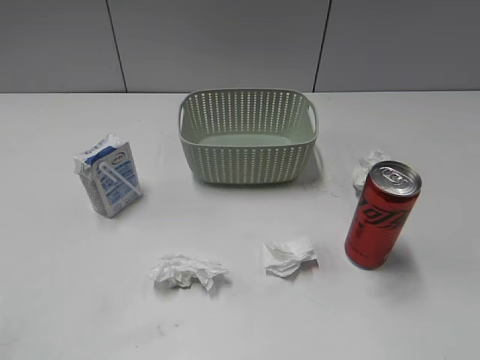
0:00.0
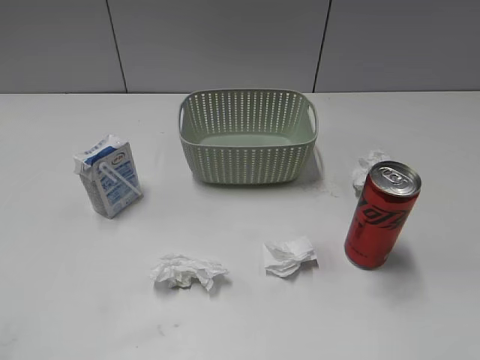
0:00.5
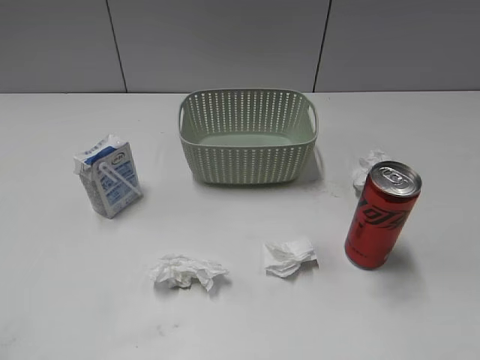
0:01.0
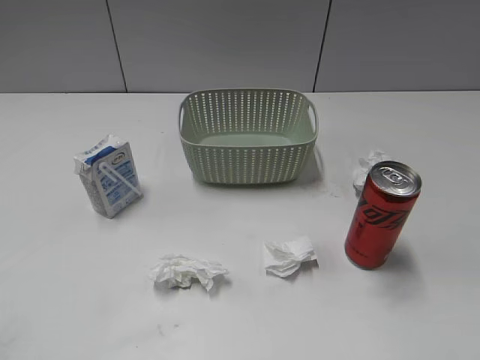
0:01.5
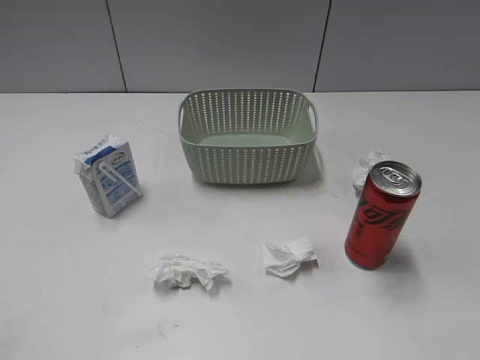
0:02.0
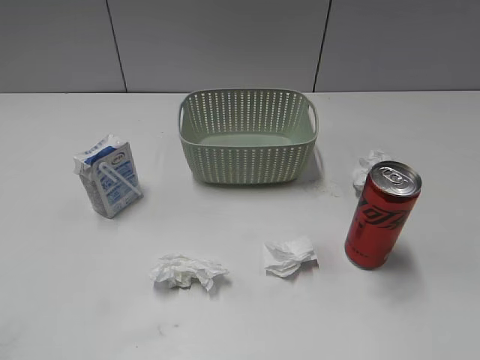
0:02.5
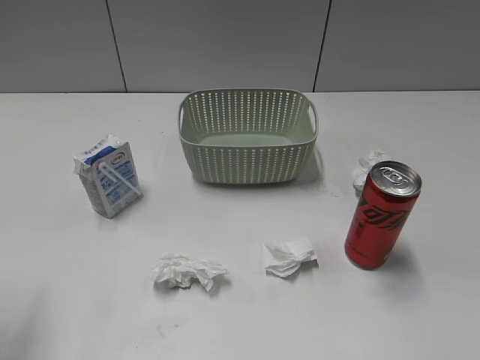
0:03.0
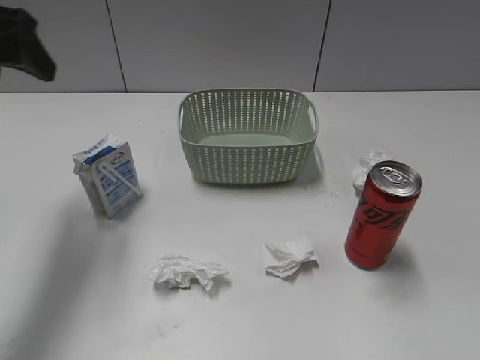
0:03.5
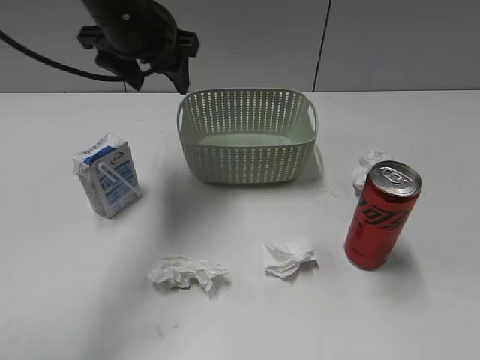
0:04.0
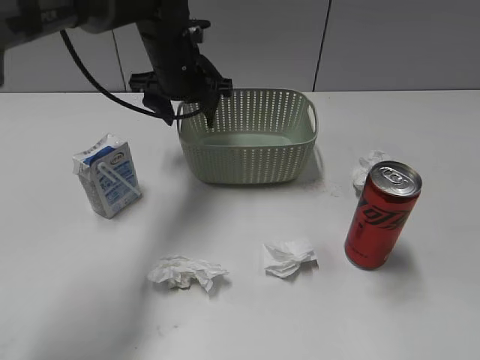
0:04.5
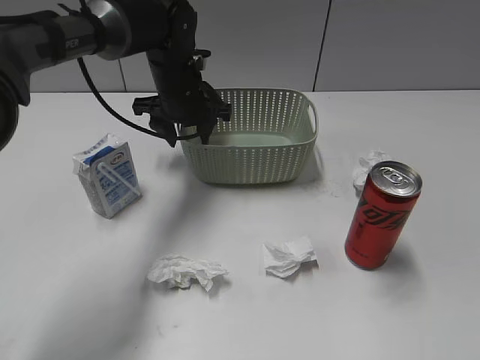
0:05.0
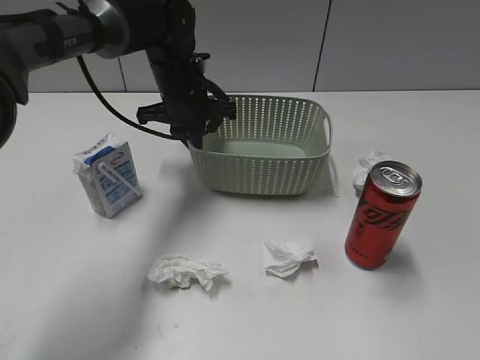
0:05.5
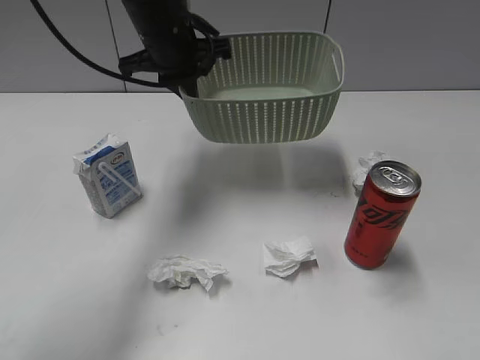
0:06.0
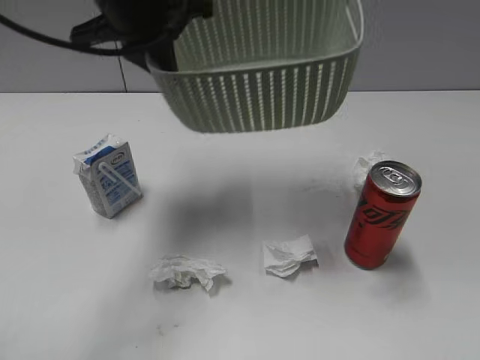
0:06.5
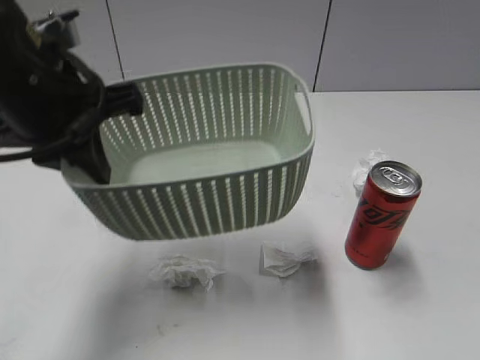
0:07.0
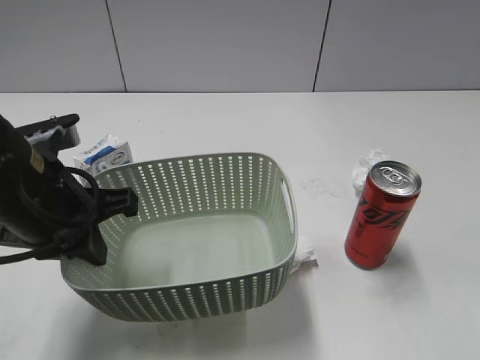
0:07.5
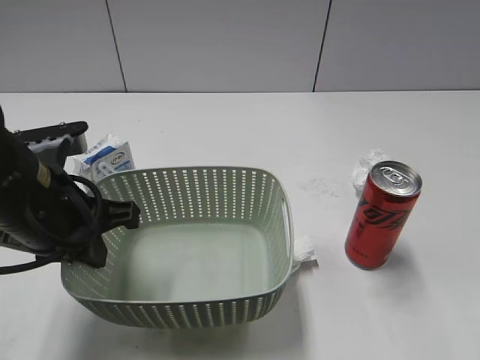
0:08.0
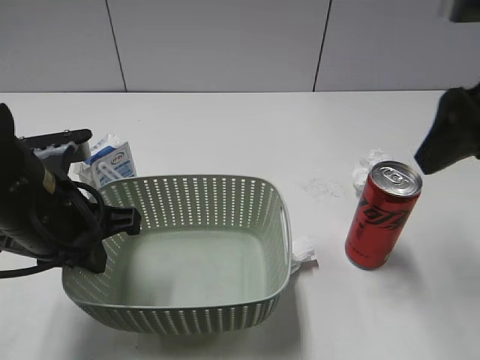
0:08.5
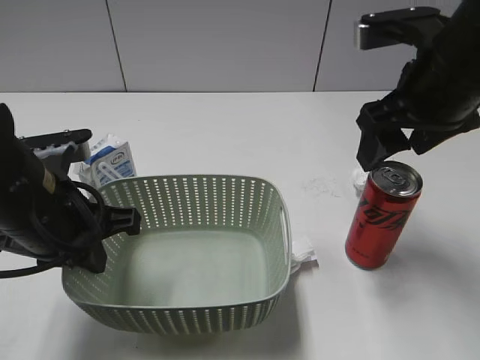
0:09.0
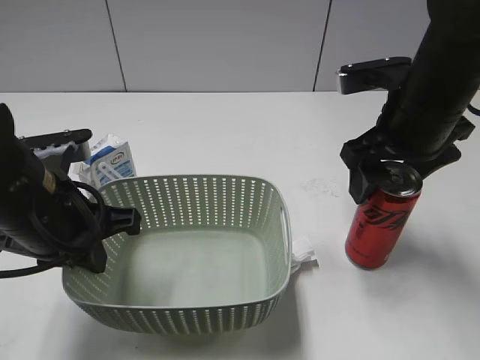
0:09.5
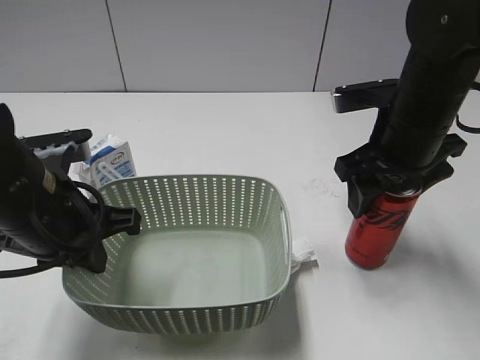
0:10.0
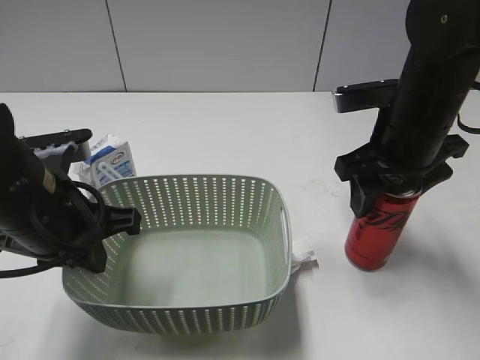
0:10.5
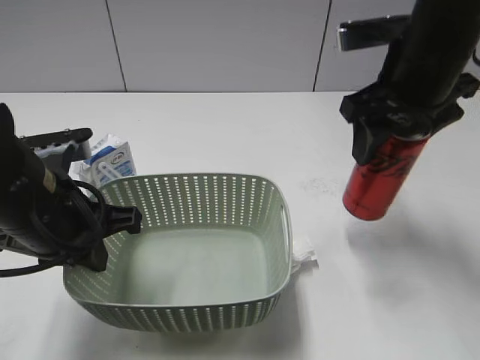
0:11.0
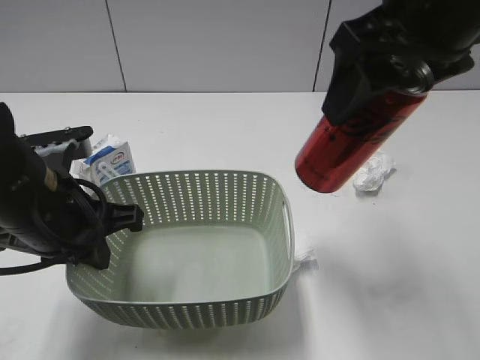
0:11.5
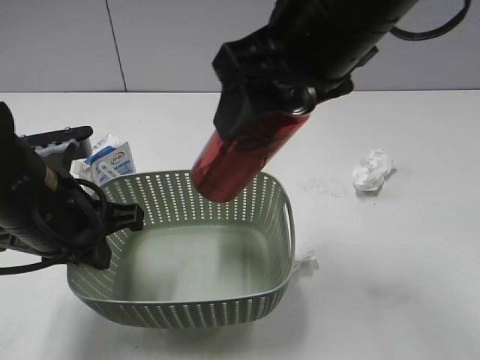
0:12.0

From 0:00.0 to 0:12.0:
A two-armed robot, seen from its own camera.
Step, from 0:03.5 to 0:05.0: Grasp the basket with left gripper.
Step, from 0:05.5 to 0:08.0: Lift the basket with left gripper.
Step, from 0:08.5 to 0:10.5: Grasp the cola can with right gripper.
From 0:02.0 to 0:04.0: The left gripper is displaced forward and to the right by about 50 cm, and opens up.
From 0:04.0 to 0:06.0: The left gripper travels downward and back again, approximately 10 cm each way, and closes its fingers.
From 0:06.0 to 0:08.0: The right gripper goes some 15 cm forward and upward. Meanwhile the left gripper goes roughly 25 cm backward and to the left.
From 0:08.0 to 0:10.0: The right gripper is displaced forward, downward and to the left by some 25 cm.
From 0:10.0 to 0:12.0: The right gripper travels upward, to the left and backward by roughly 20 cm, and closes up.

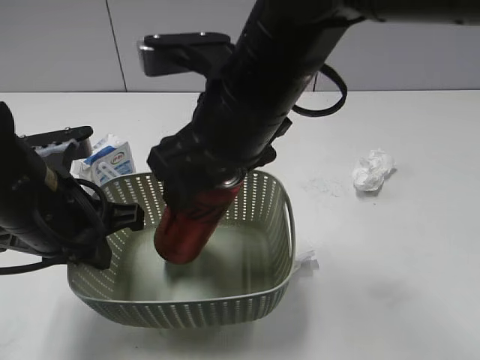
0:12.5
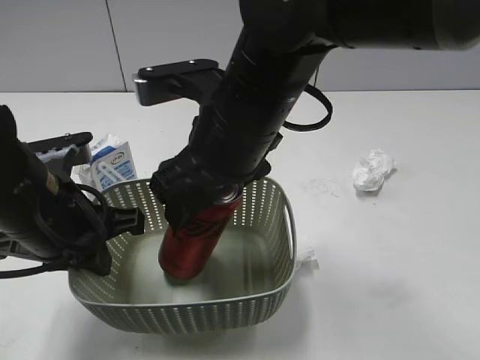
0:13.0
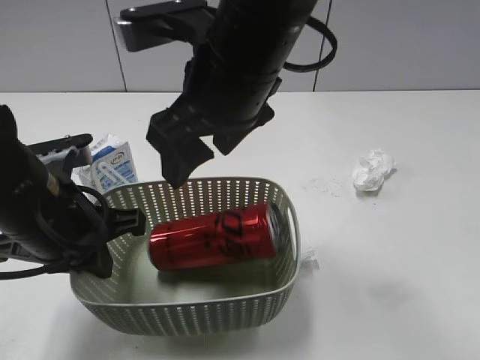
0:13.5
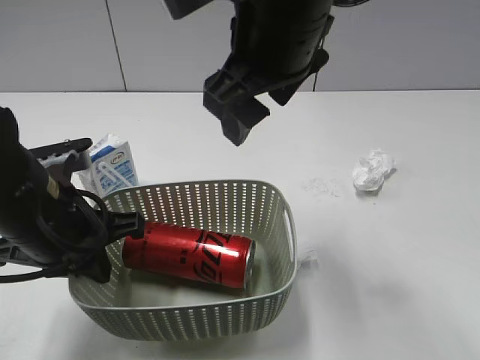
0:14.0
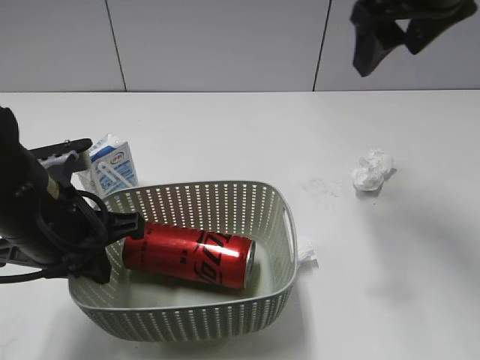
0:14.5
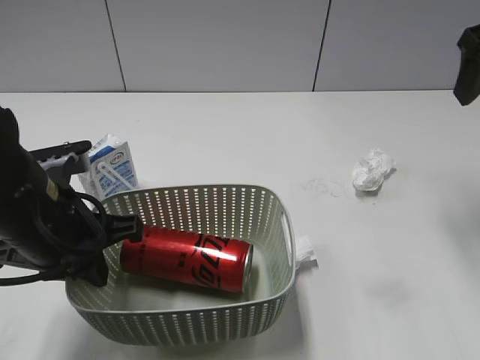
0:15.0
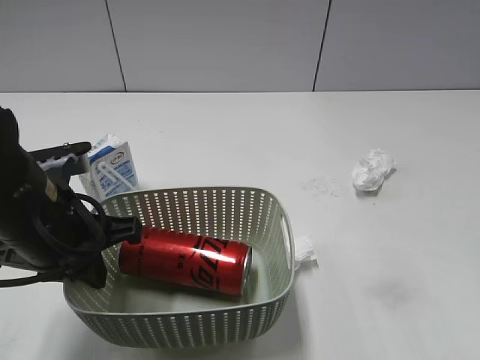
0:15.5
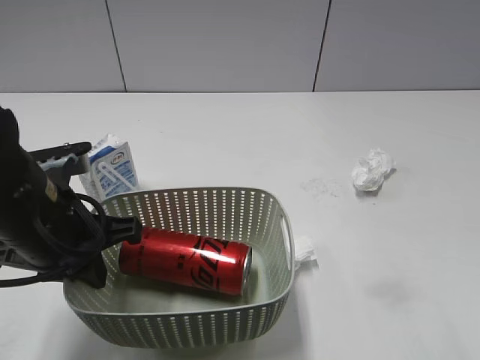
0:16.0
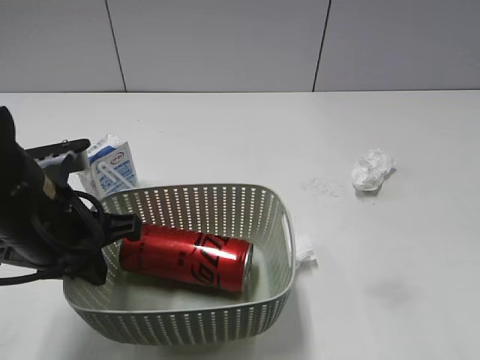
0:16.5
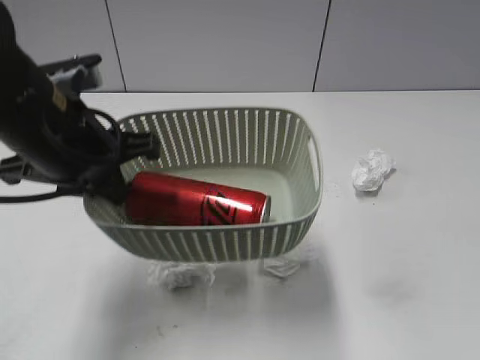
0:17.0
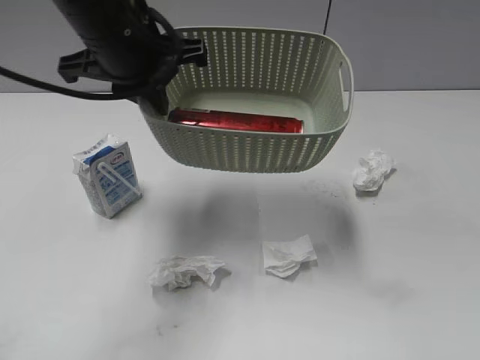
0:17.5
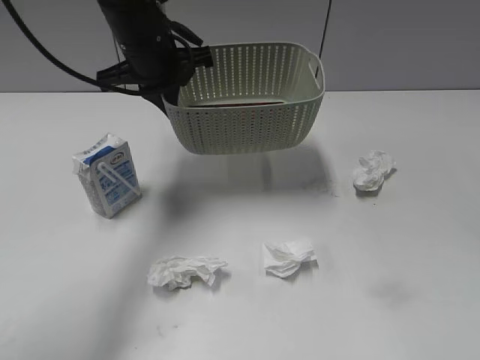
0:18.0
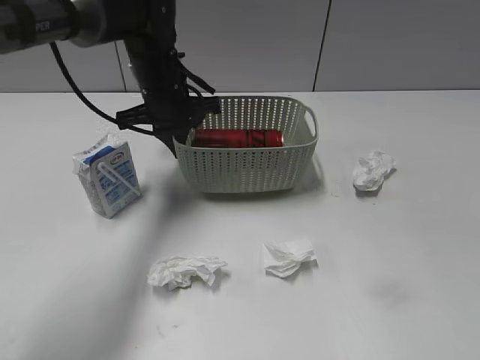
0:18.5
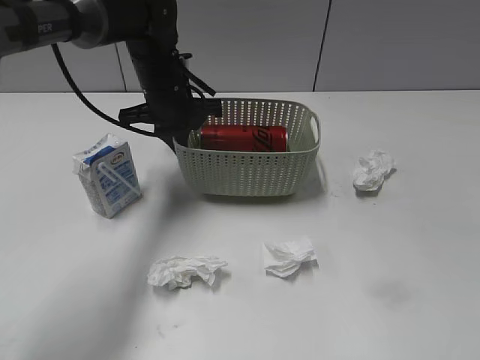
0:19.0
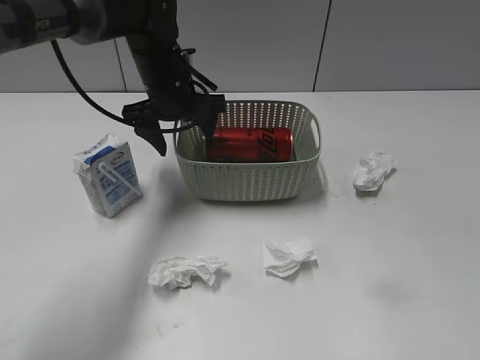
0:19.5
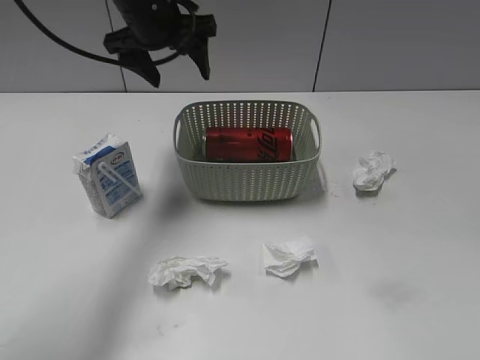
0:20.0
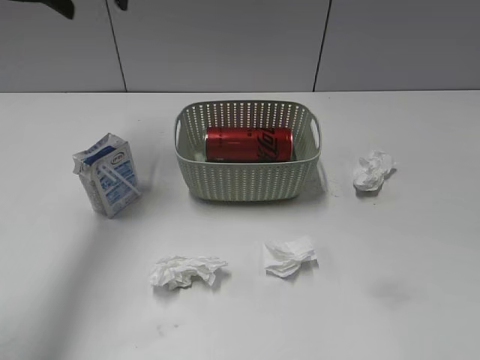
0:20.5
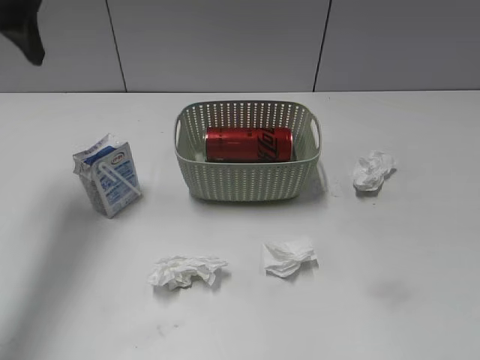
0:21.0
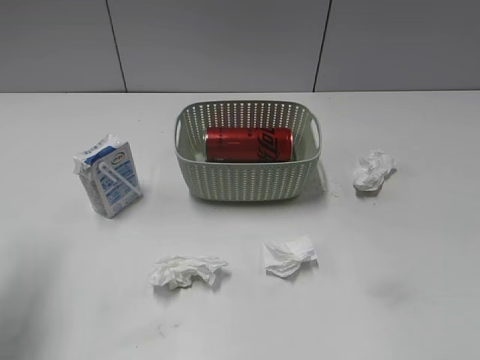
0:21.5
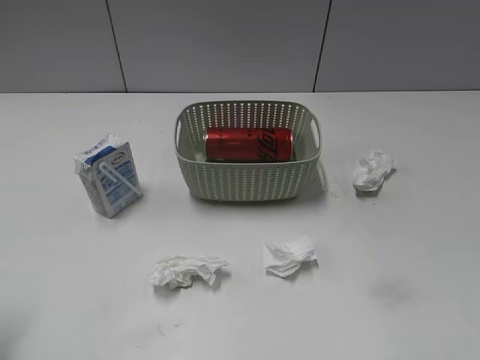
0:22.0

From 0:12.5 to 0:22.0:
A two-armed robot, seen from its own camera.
Step, from 0:13.5 to 0:19.0: Place the basket on the table with left gripper.
From 0:12.5 to 0:14.5: The right gripper goes roughly 20 cm to the right, forward and upward, and opens.
From 0:14.5 to 0:16.5: The right gripper moves backward and to the right, roughly 30 cm.
From 0:16.5 to 0:18.0: The left gripper heads forward, covering approximately 20 cm, while the right gripper ends up approximately 5 cm from where it was.
From 0:18.0 to 0:20.0: The left gripper moves approximately 5 cm downward and comes back, and opens.
From 0:20.0 to 0:22.0: The left gripper moves backward and to the left, roughly 35 cm.

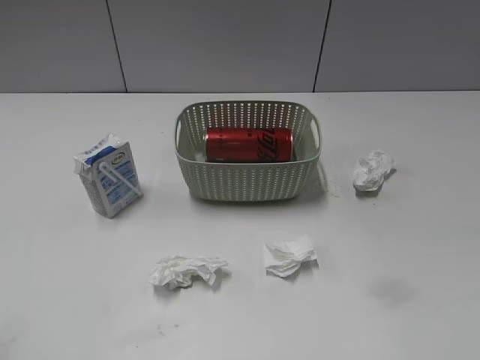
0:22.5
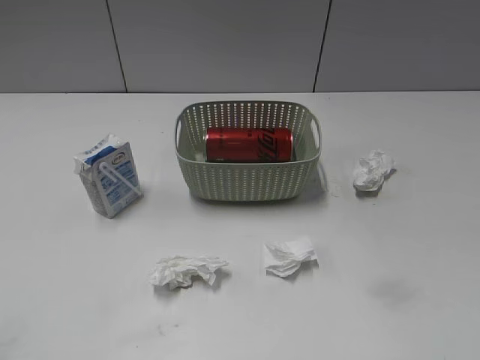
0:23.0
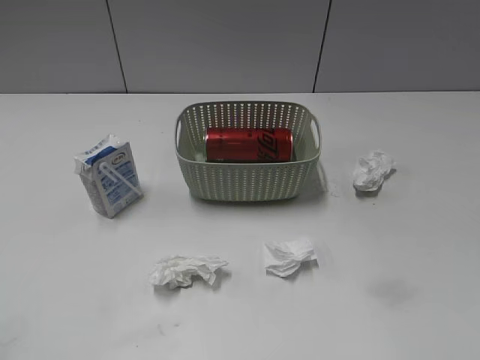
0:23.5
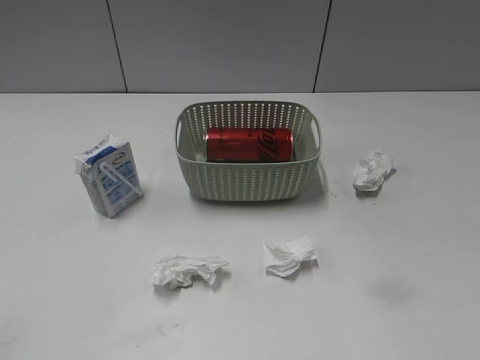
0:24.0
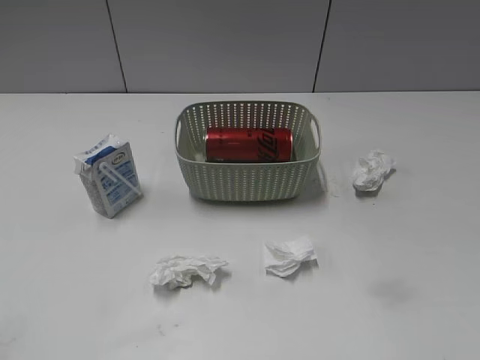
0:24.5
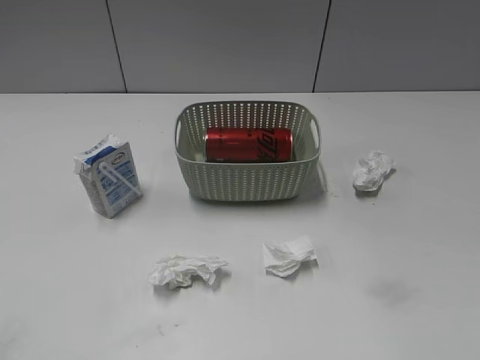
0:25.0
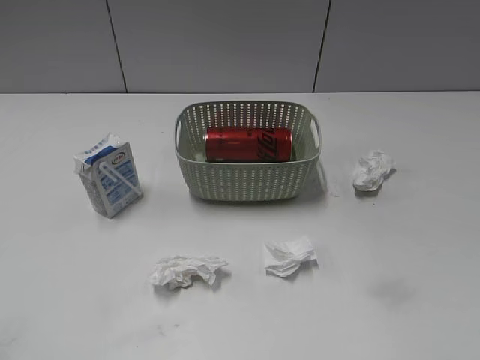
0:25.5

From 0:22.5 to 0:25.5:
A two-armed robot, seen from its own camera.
From 0:24.0 to 0:25.5: Both grippers stay about where they are.

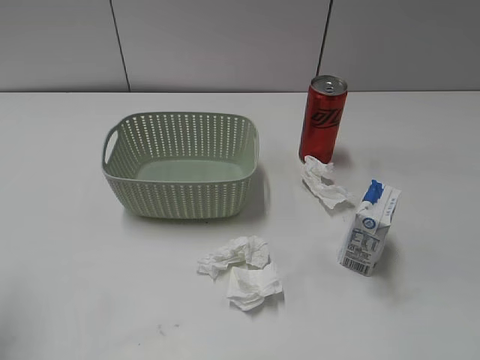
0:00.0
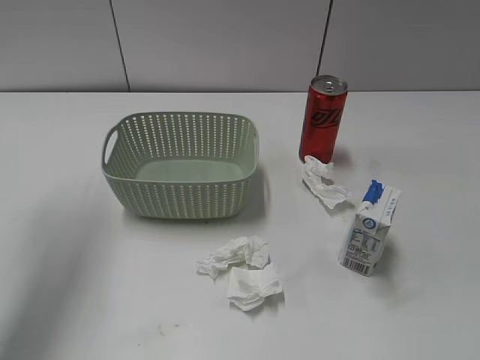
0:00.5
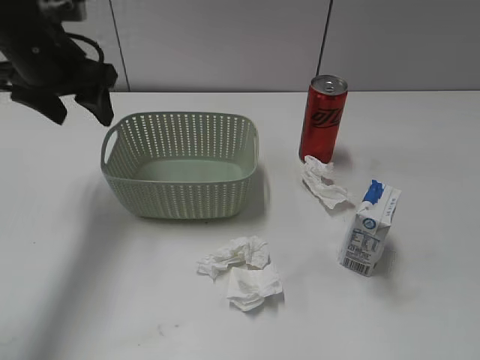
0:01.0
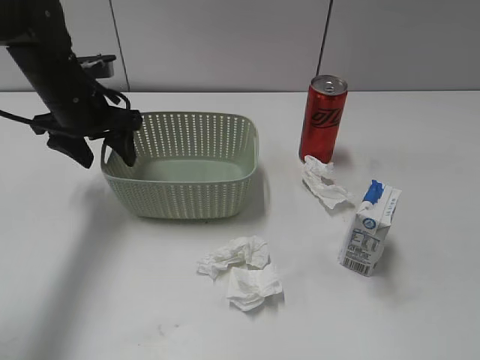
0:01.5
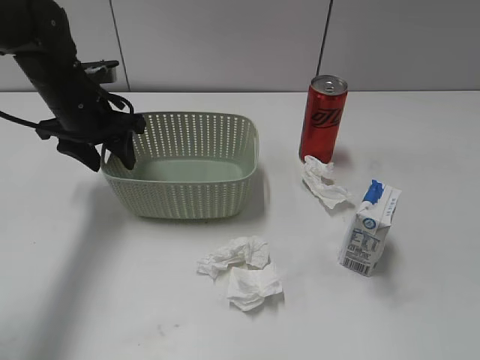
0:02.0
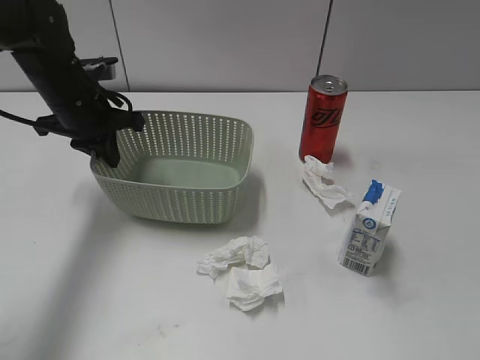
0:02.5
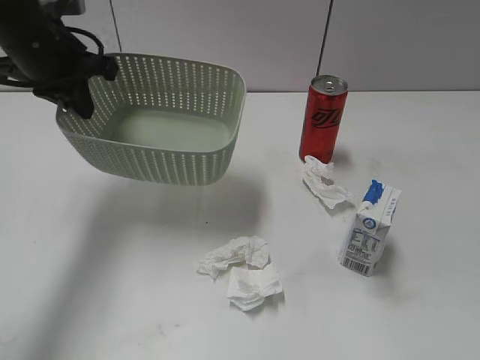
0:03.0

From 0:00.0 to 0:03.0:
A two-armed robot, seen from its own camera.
Step, from 0:01.0 to 0:02.0: Grasp the basket with left gripper.
From 0:00.0 to 0:01.5: The left gripper travels forward, downward and to the right by roughly 35 cm.
From 0:01.5 to 0:03.0: The left gripper goes some 10 cm upward, and closes its fingers.
